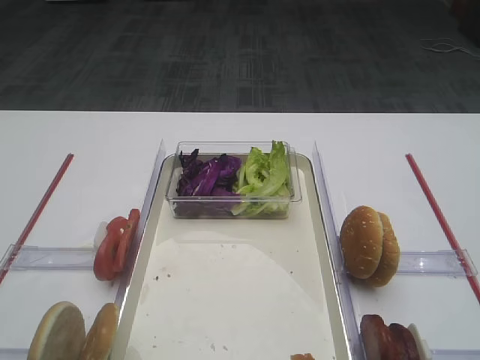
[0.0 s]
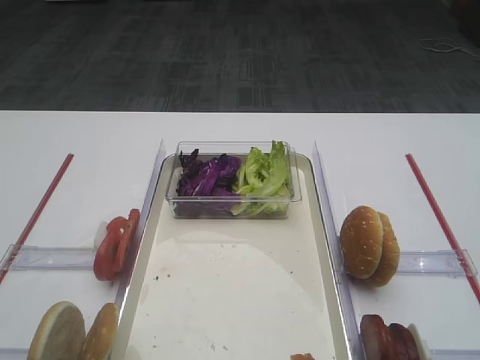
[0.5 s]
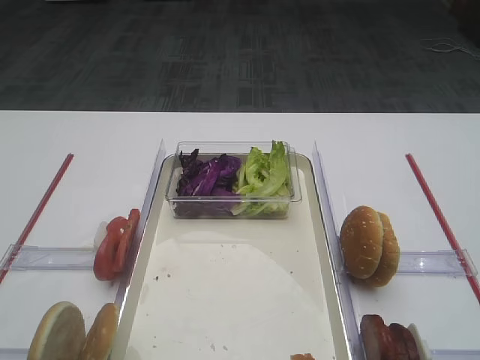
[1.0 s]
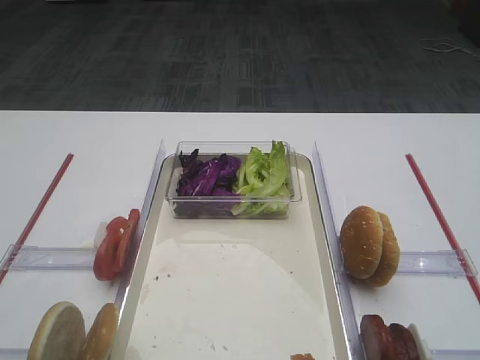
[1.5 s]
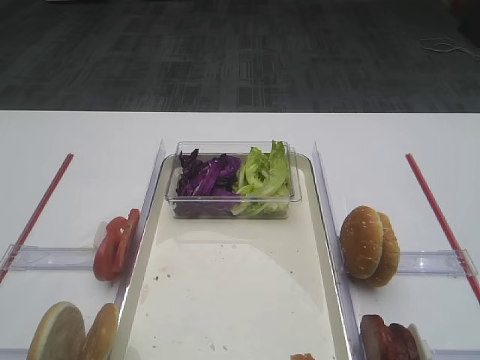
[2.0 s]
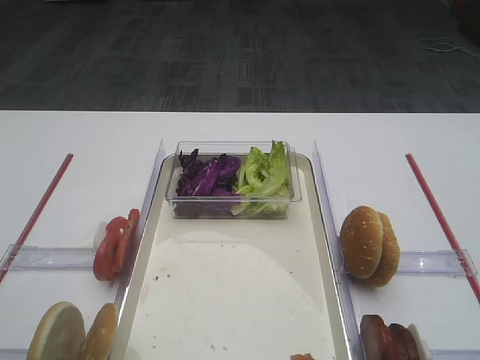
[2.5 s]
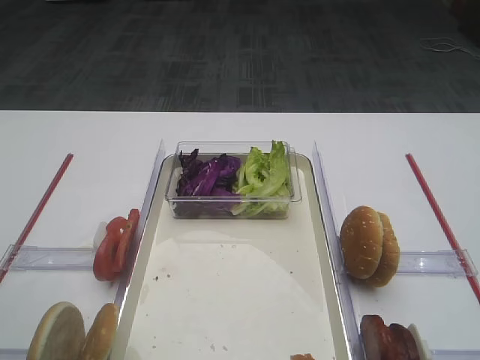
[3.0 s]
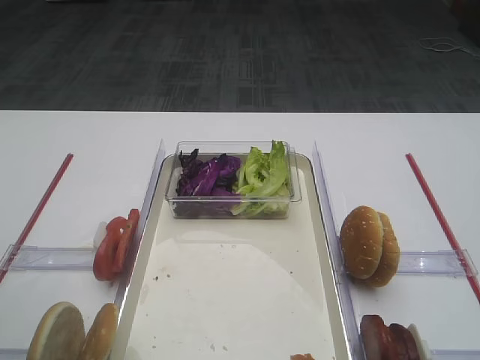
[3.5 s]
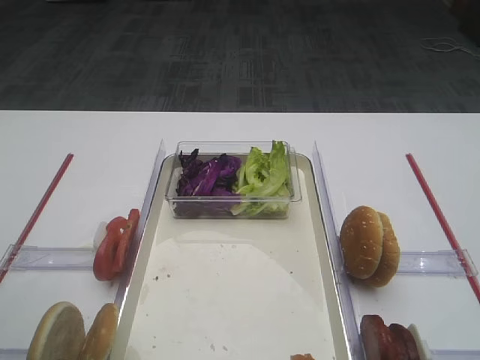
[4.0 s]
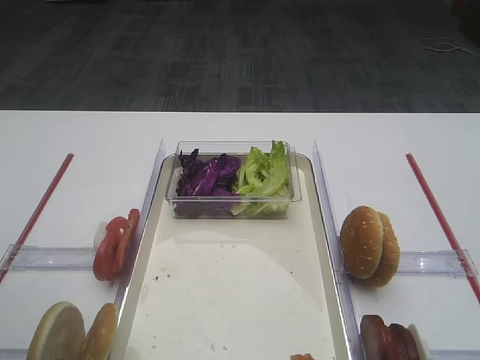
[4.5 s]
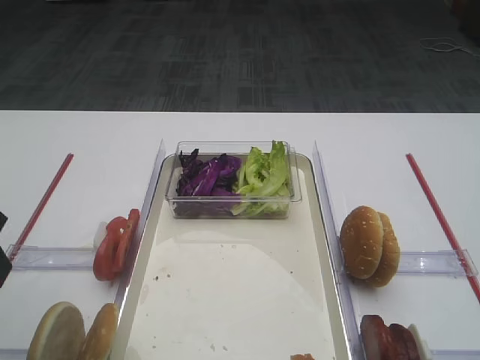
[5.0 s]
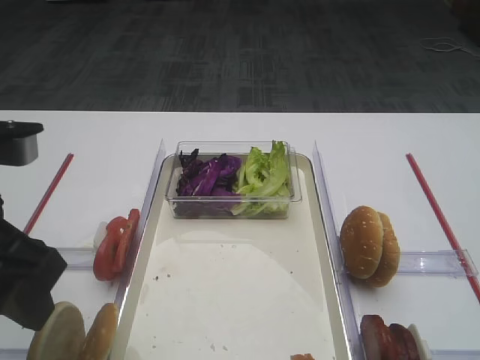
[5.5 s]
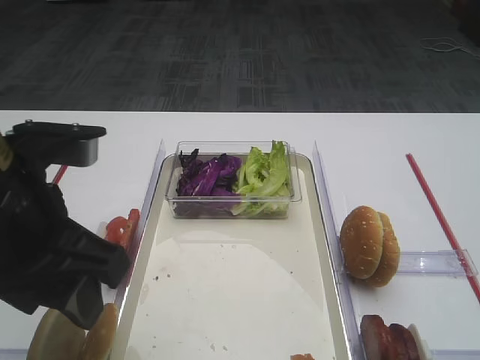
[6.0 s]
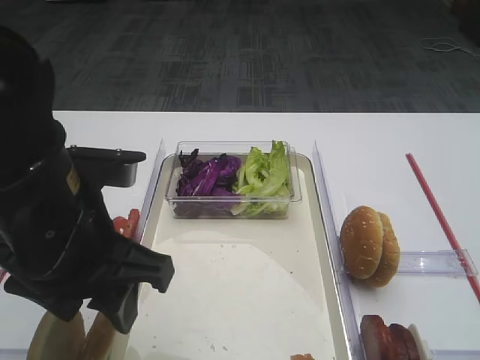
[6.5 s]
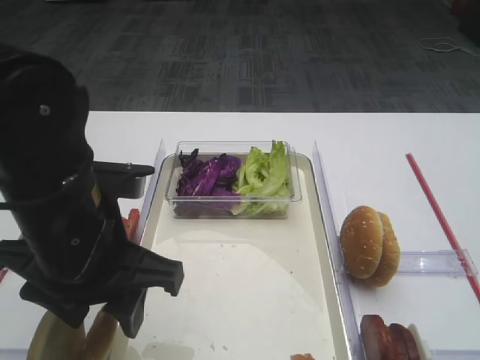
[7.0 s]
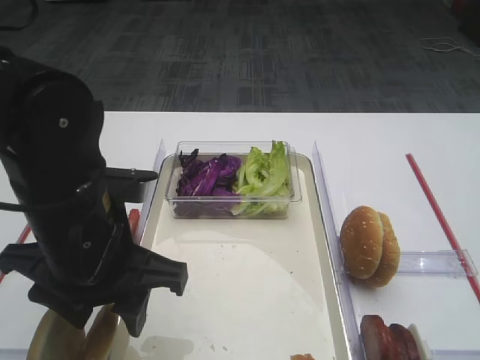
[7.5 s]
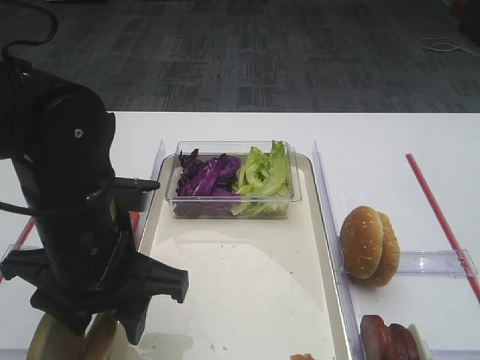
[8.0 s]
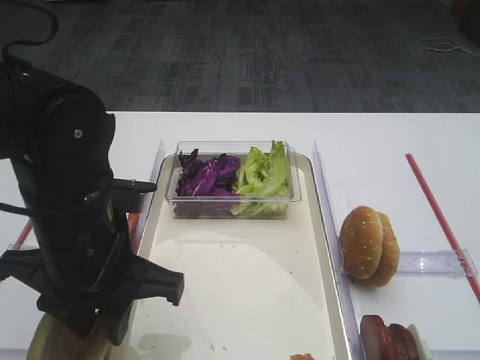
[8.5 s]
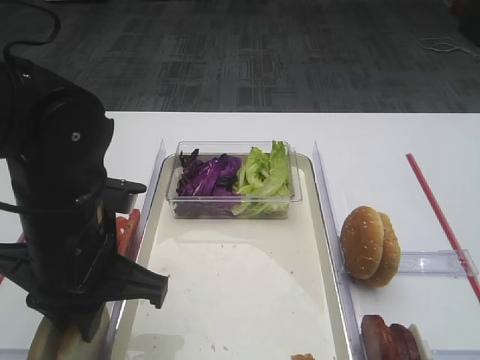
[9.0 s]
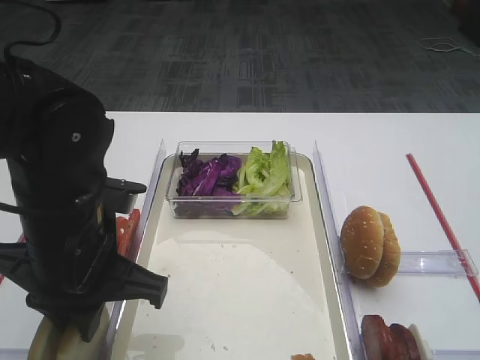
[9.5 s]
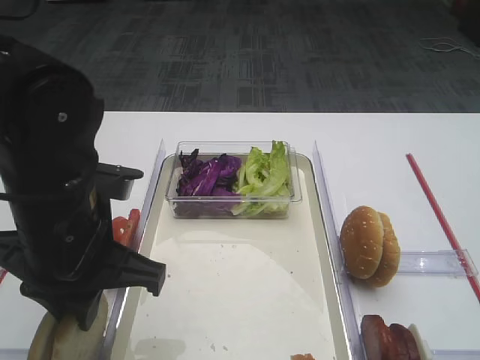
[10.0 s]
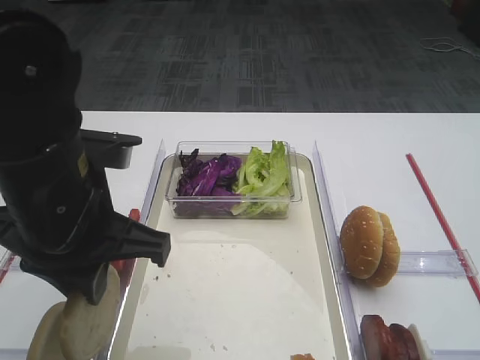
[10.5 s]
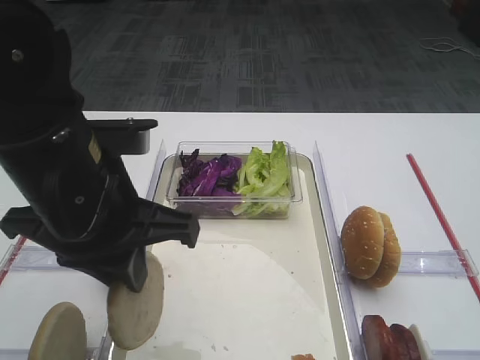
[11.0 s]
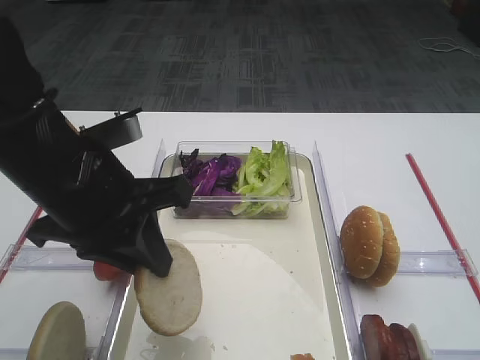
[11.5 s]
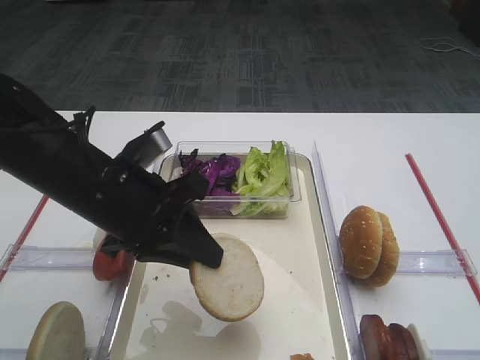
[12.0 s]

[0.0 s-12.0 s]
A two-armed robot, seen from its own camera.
Step, 0.0 to 10.5 s: Pick up the bread slice with the left gripper.
4.0 to 6.0 s: The left gripper shifts approximately 10 cm to the right.
6.0 to 8.0 s: The left gripper heads downward, covering approximately 5 cm.
8.0 to 10.0 s: The left gripper closes up.

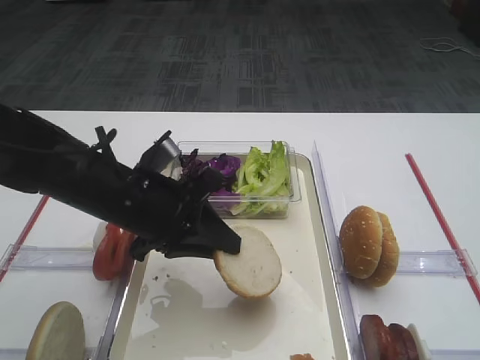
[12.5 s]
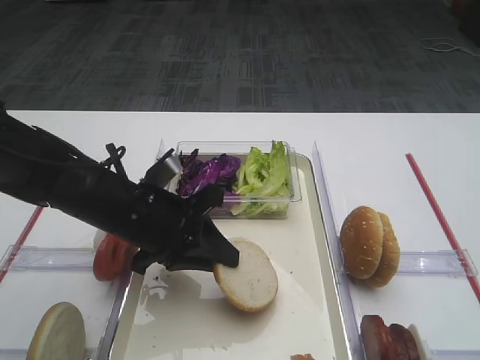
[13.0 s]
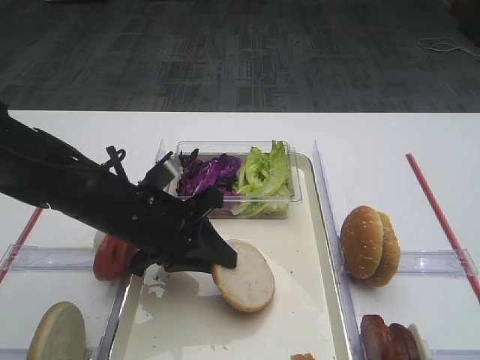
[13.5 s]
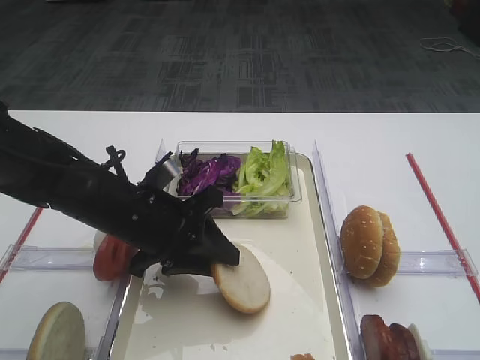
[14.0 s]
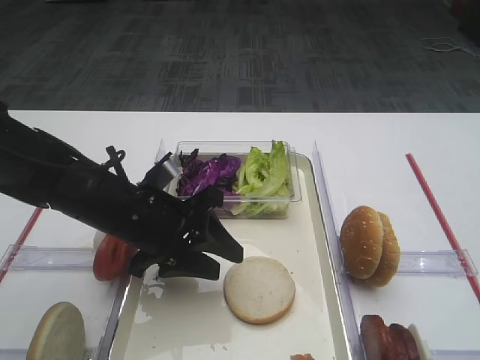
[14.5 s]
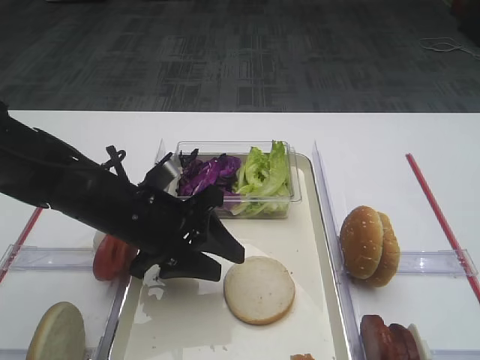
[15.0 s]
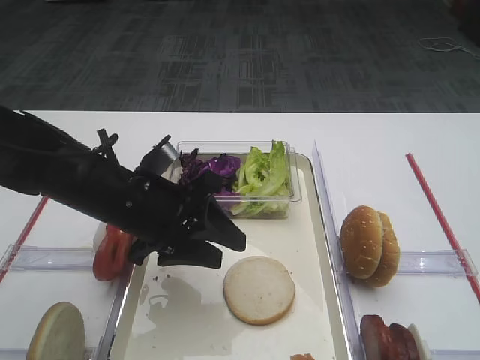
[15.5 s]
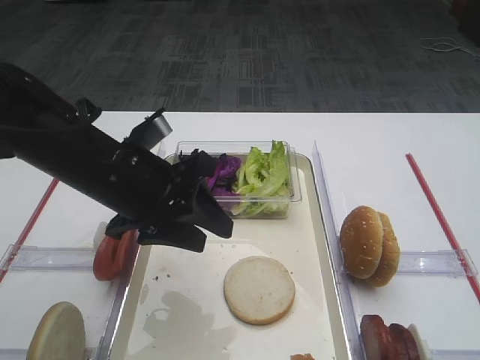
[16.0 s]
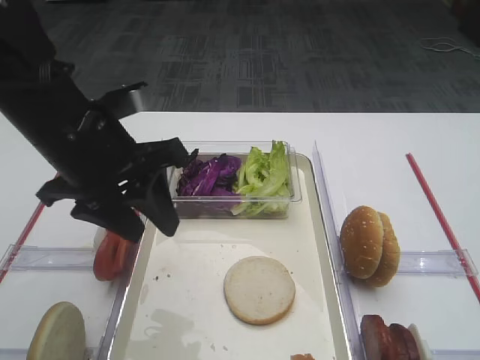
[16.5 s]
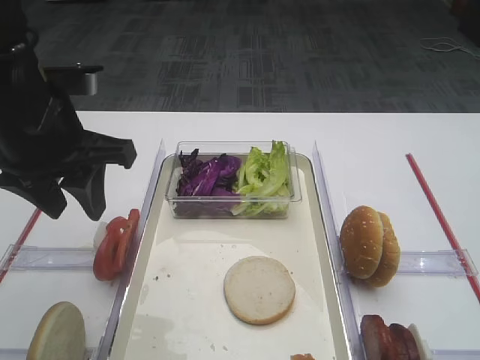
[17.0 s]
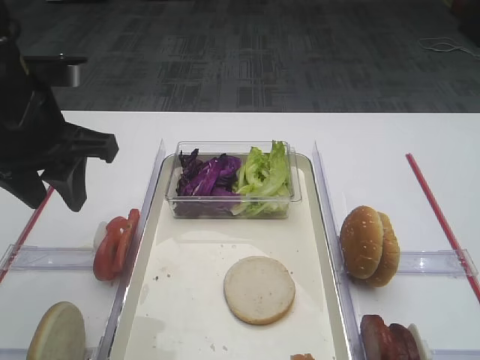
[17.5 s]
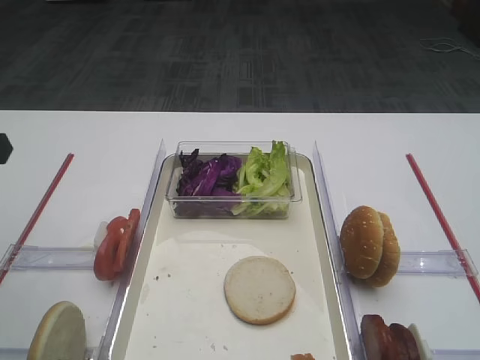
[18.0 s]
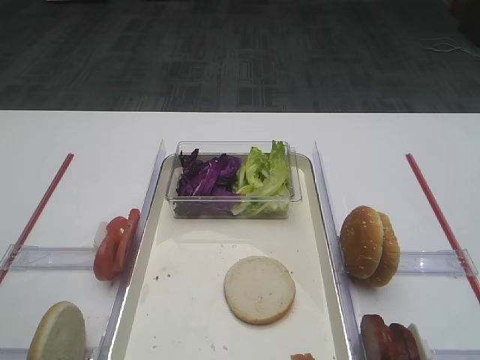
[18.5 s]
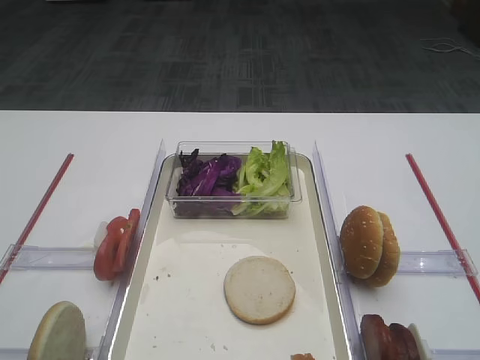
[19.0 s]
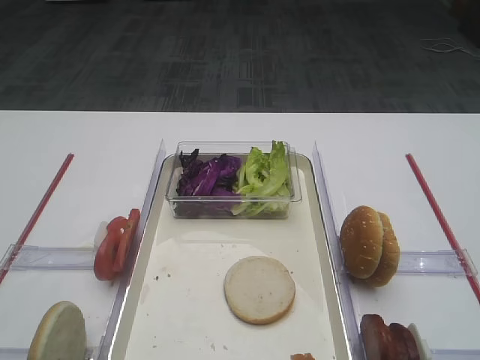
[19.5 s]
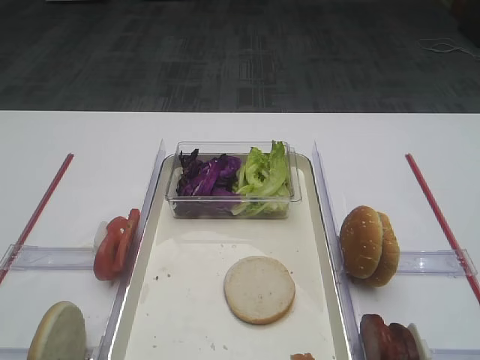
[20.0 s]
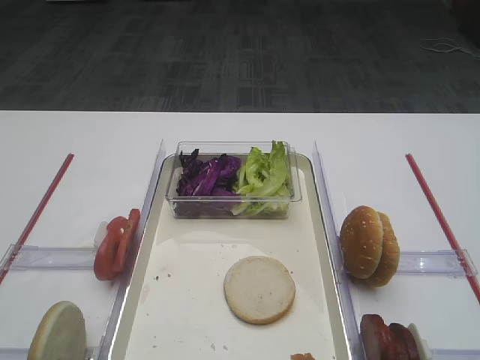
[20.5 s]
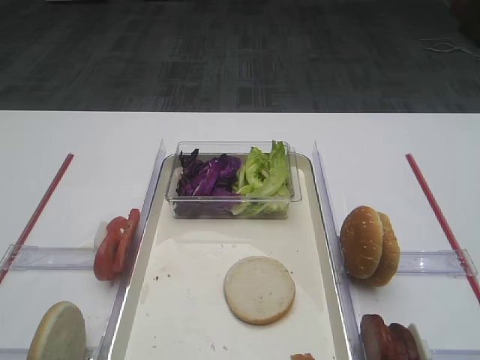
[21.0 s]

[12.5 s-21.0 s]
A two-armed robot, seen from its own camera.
Step, 12.5 to 16.0 s: Place the bread slice on the tray with the left gripper.
12.5 to 14.5 s: The left gripper opens.
14.5 to 16.5 s: The left gripper travels upward by approximately 10 cm.
16.5 to 19.0 s: The left gripper heads backward and to the left, covering approximately 25 cm.

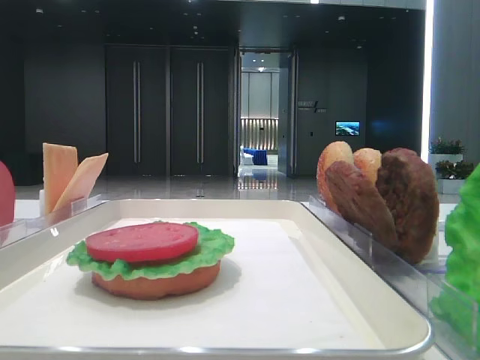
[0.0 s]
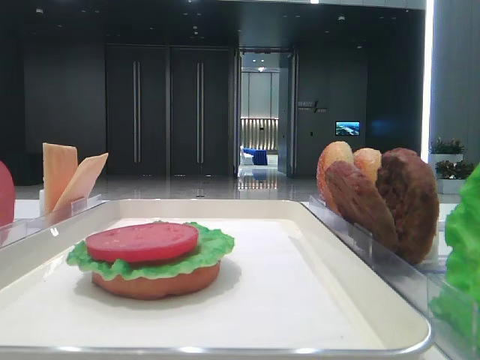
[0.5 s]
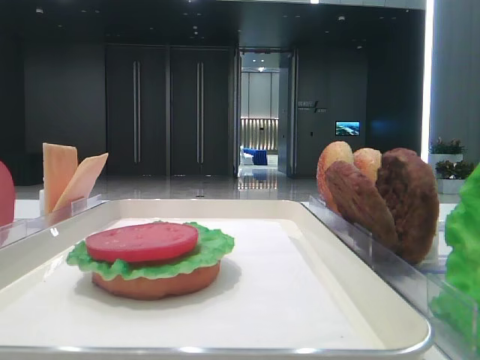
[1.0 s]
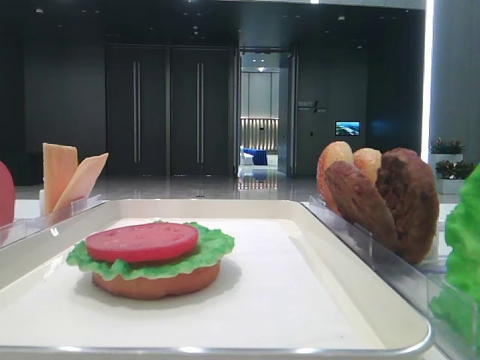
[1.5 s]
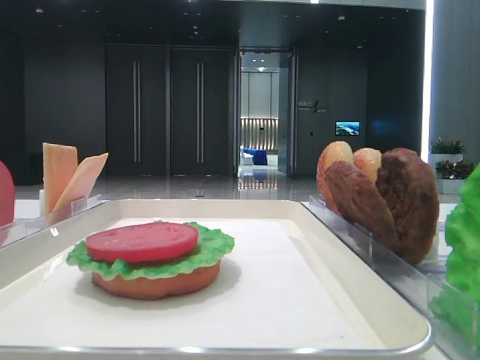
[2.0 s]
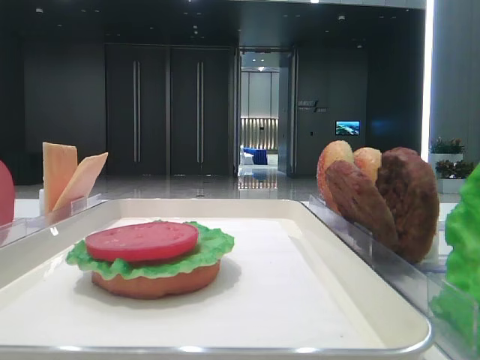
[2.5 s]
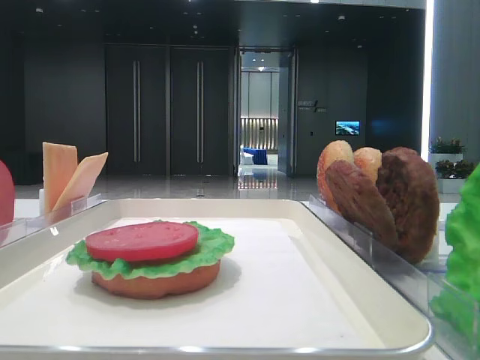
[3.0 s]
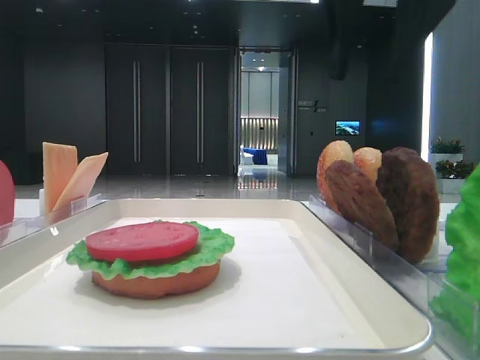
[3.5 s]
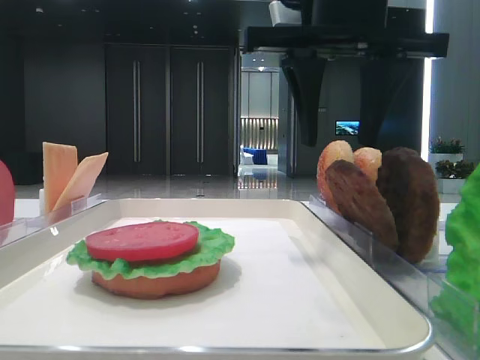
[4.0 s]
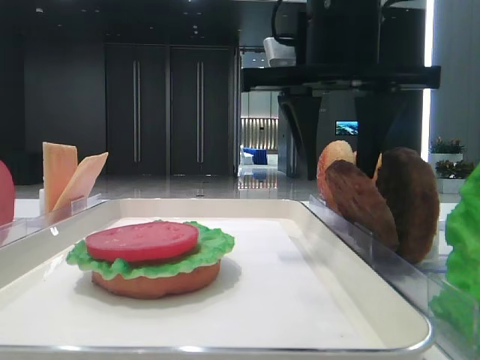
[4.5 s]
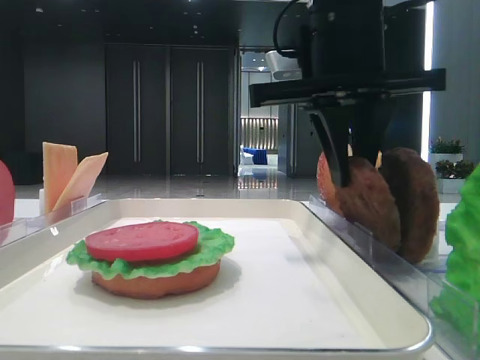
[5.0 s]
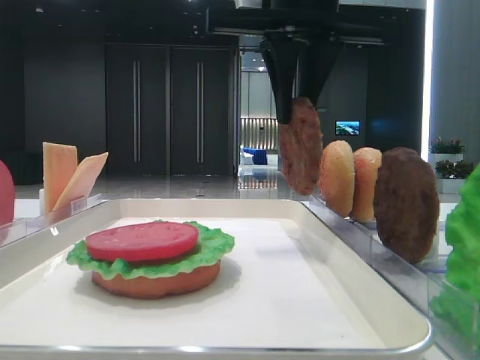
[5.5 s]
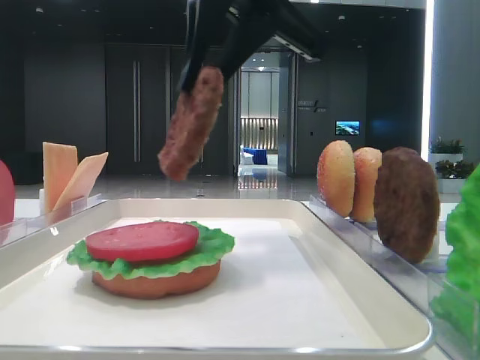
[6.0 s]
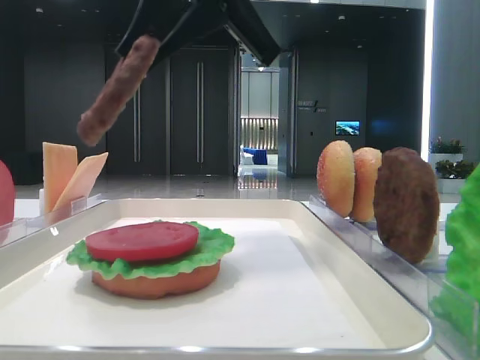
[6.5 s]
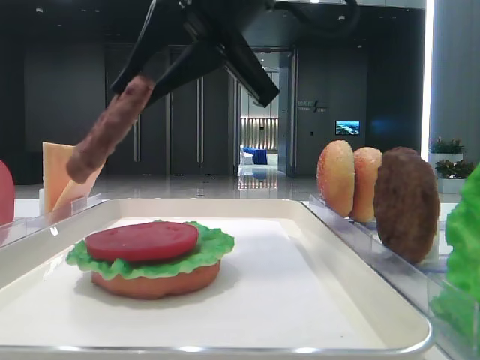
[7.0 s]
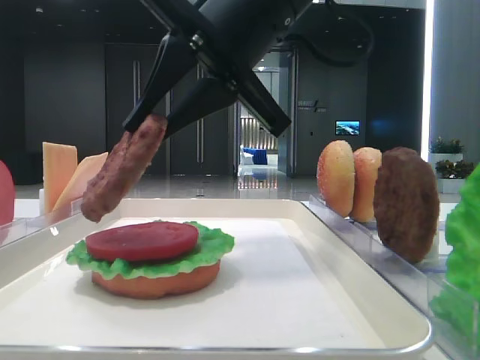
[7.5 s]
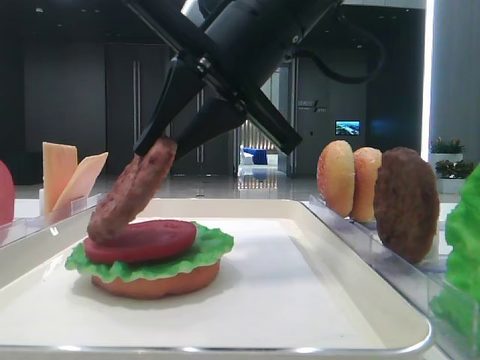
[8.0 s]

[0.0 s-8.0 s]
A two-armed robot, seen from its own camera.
Step, 0.0 to 4.5 s: Grab the patty with the right hand.
2.0 to 4.0 s: The right gripper travels forward and to the left by roughly 30 cm.
4.0 to 6.0 s: The left gripper closes; the right gripper travels to the left by approximately 5 cm, and closes up.
6.0 to 8.0 s: The right gripper shifts about 5 cm downward.
